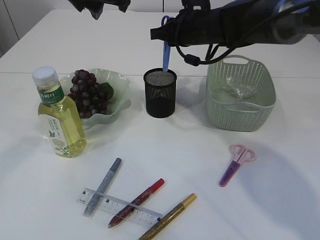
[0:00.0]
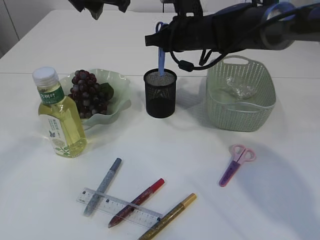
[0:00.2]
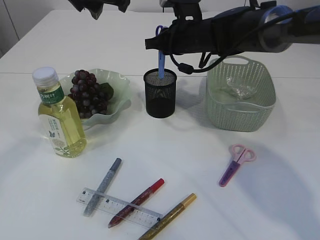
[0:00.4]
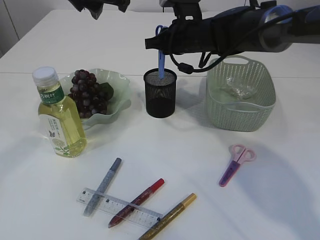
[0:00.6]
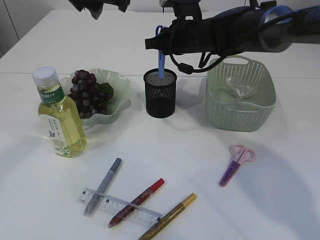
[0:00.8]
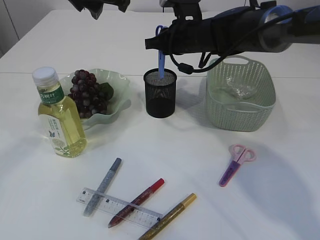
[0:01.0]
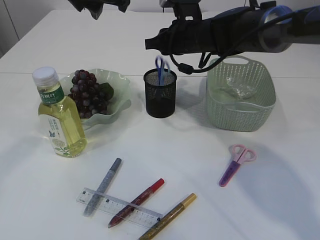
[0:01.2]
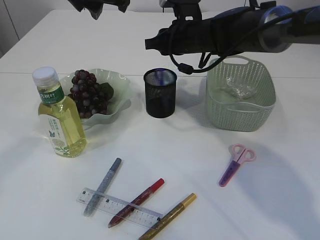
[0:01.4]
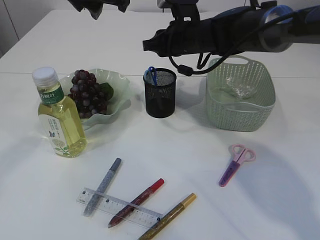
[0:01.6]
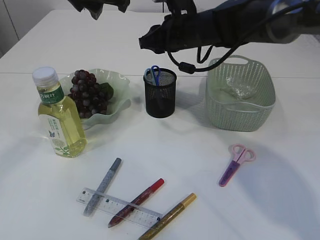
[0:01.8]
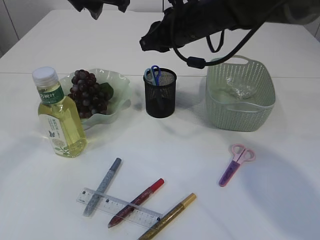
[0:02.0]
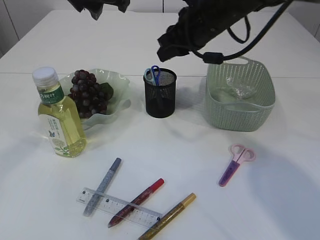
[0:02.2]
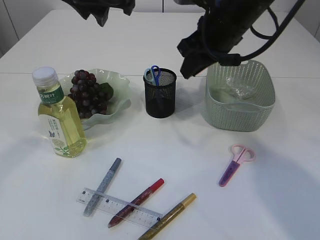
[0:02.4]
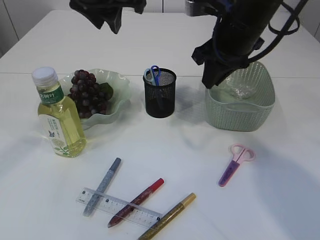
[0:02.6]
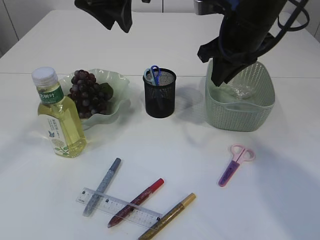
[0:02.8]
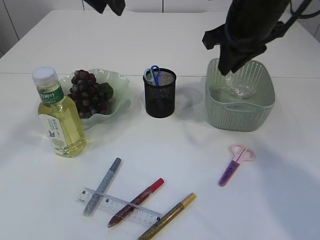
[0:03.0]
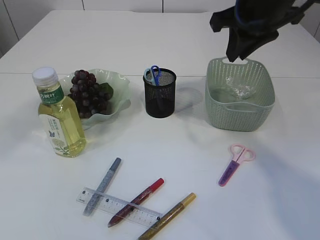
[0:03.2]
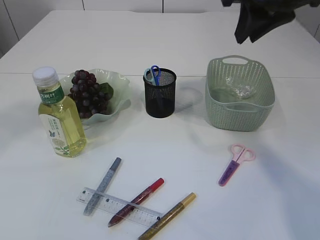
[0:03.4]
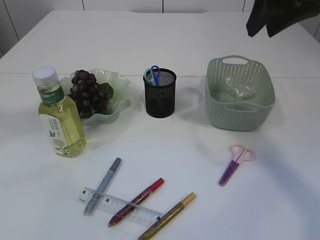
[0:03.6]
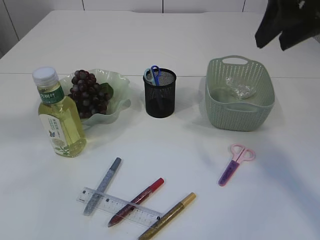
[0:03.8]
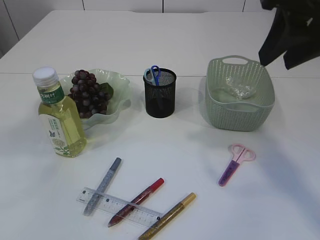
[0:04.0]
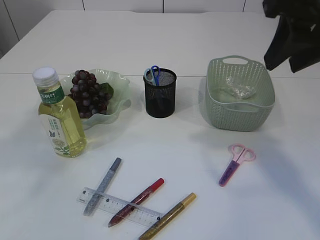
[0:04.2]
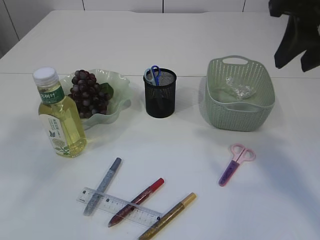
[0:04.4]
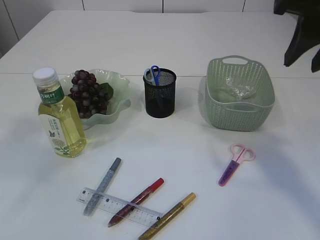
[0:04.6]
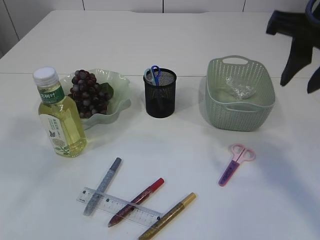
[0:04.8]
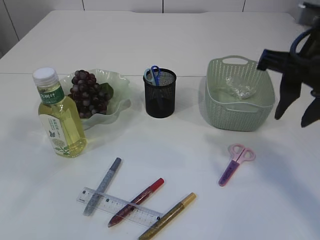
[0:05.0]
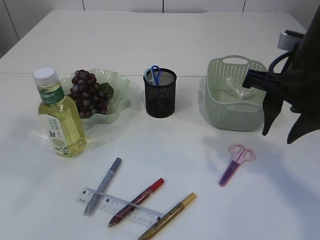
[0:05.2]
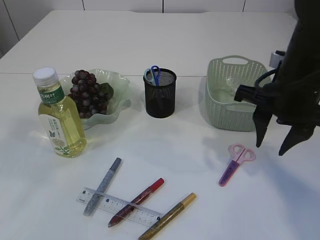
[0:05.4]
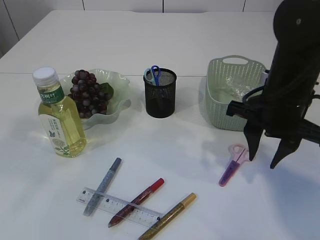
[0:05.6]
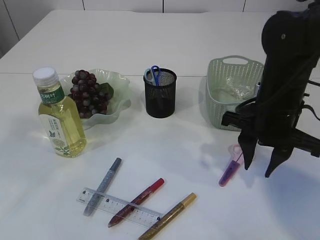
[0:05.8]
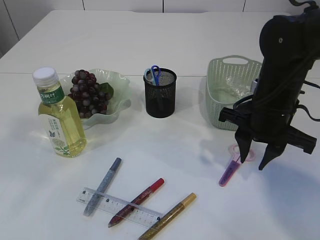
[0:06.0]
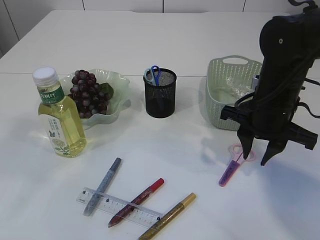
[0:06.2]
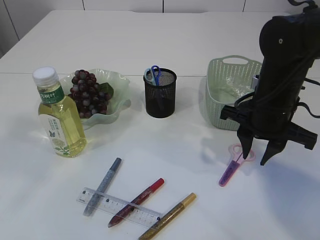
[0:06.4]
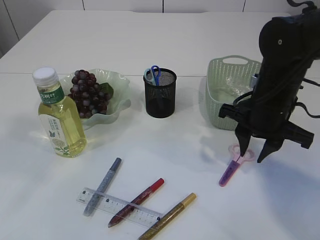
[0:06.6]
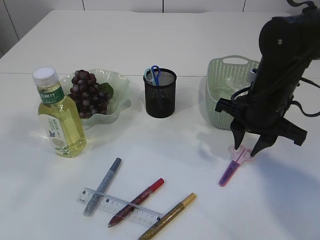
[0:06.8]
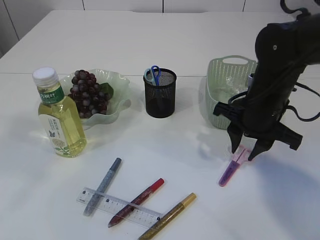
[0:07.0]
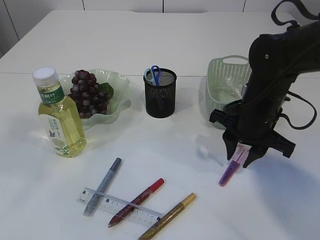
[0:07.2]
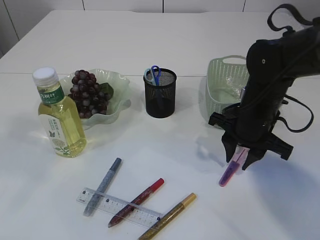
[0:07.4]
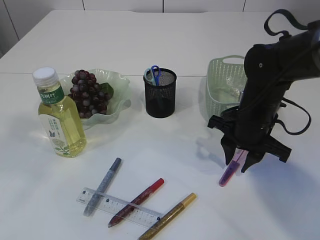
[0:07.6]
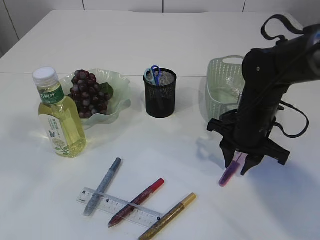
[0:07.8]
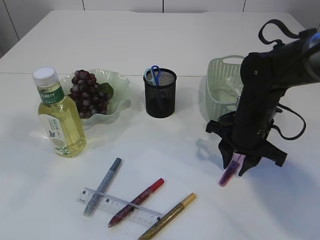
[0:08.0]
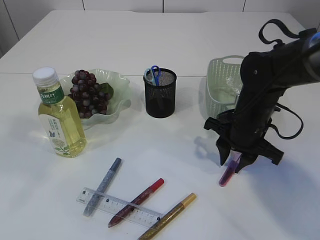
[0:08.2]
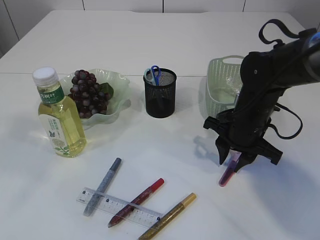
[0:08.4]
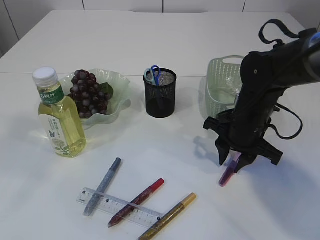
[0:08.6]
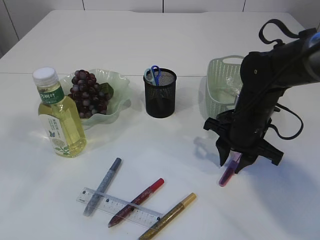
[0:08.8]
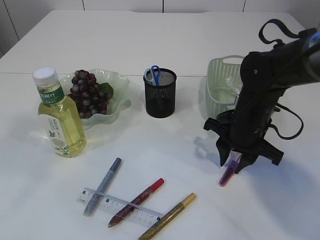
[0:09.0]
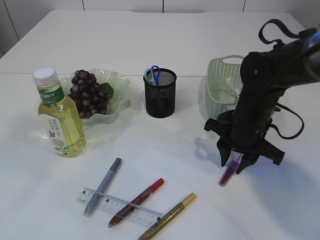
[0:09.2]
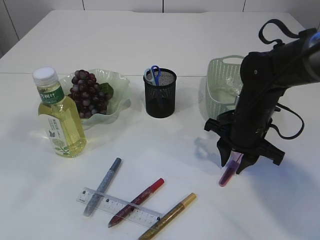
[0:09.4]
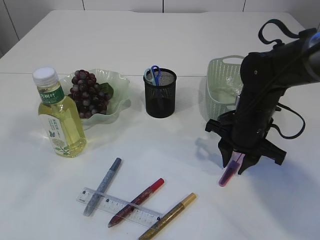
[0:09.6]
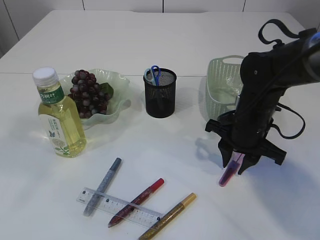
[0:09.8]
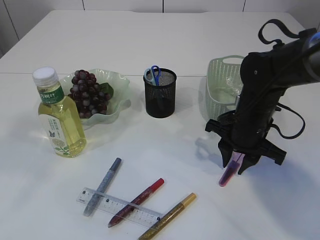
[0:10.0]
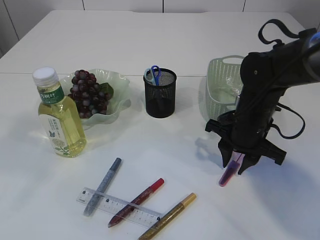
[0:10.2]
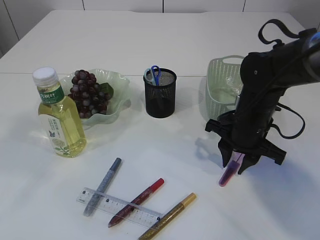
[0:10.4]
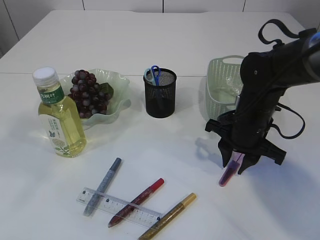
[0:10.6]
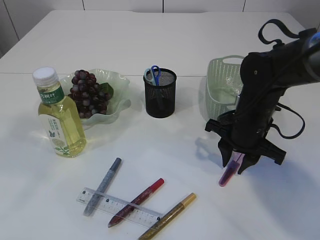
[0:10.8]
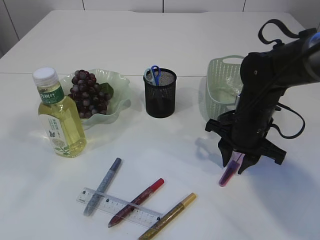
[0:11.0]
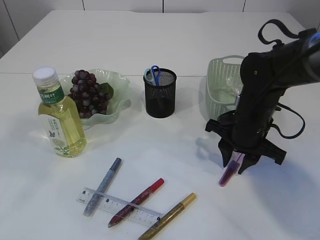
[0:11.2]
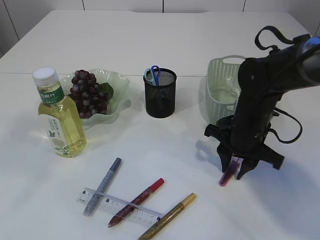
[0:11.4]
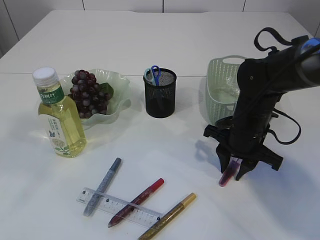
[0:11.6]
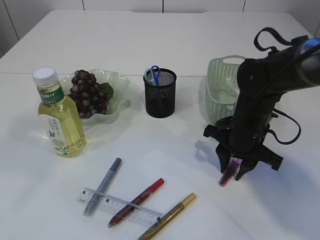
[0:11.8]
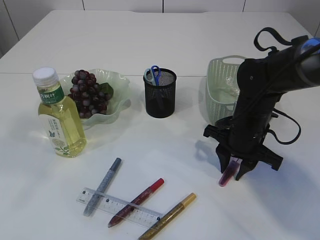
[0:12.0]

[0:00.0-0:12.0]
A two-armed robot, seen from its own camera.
Step, 0:00.0 to 0:02.0: Place the blue scissors into the pen holder.
0:00.0 to 0:01.6: The grippers make only small movements.
0:01.6 to 0:03.0: The left gripper ends up some 5 cm from where it was. The right gripper travels backward, upward and to the right by about 15 cm.
0:03.0 to 0:04.4: The left gripper travels backward, to the left and upward by approximately 20 cm; the right gripper travels backward and upward by roughly 15 cm.
0:04.4 to 0:06.0: The right gripper shifts some 20 cm downward.
0:06.0 to 0:07.6: The right gripper ends up approximately 5 cm from where it was.
0:07.6 to 0:09.0: The grippers stay close to where they were, moving slightly.
0:09.0 to 0:12.0: Both grippers stay put.

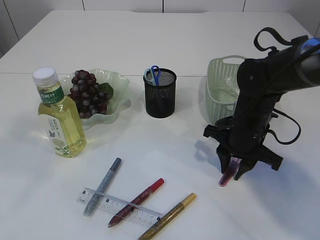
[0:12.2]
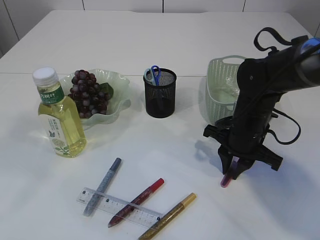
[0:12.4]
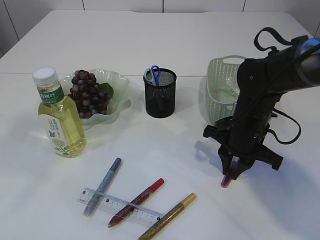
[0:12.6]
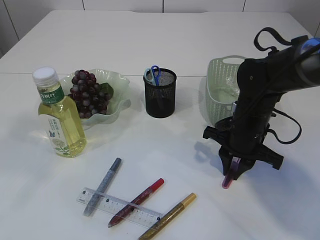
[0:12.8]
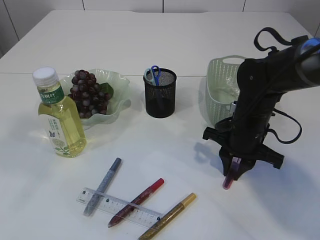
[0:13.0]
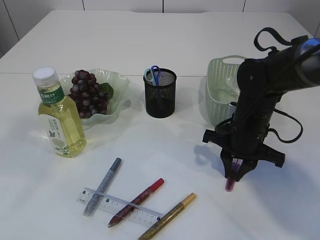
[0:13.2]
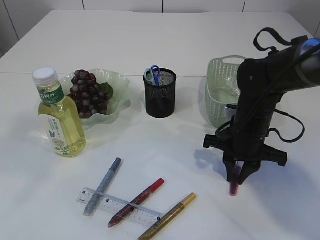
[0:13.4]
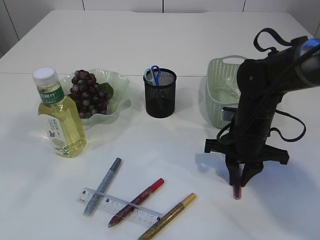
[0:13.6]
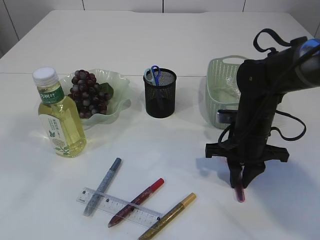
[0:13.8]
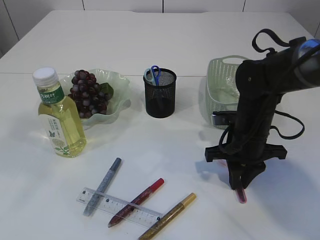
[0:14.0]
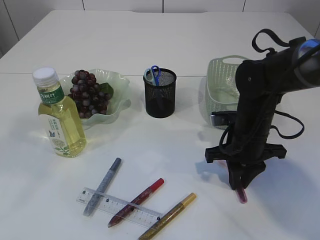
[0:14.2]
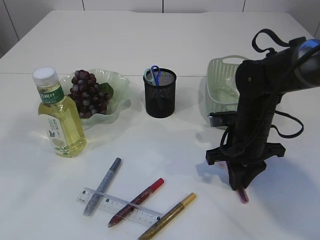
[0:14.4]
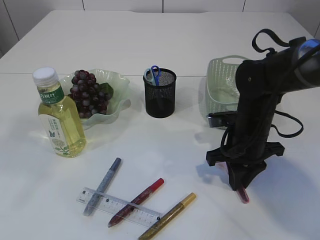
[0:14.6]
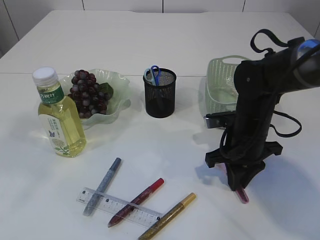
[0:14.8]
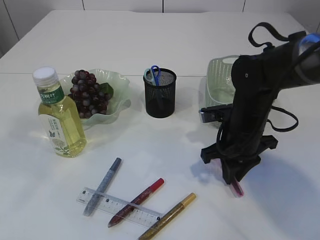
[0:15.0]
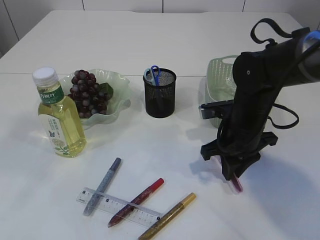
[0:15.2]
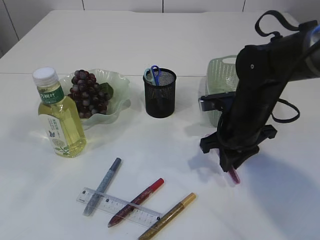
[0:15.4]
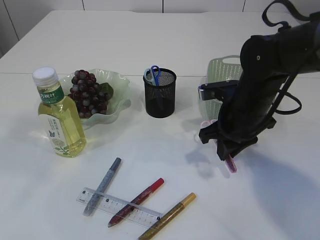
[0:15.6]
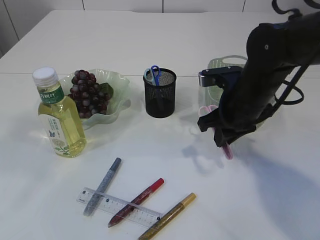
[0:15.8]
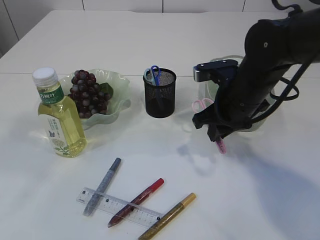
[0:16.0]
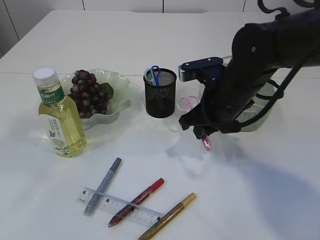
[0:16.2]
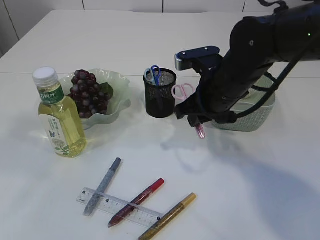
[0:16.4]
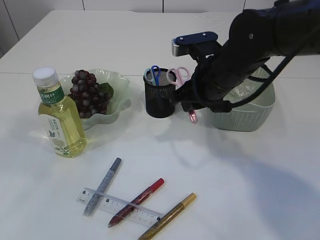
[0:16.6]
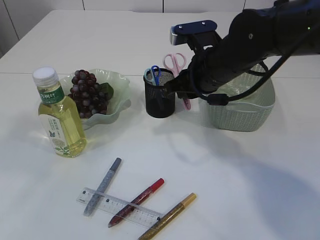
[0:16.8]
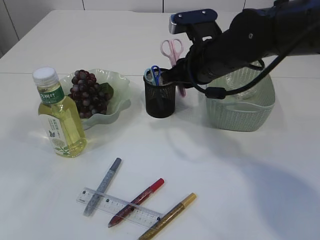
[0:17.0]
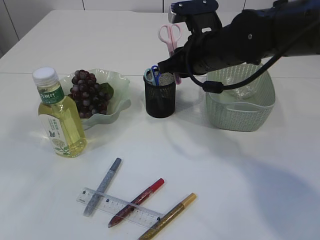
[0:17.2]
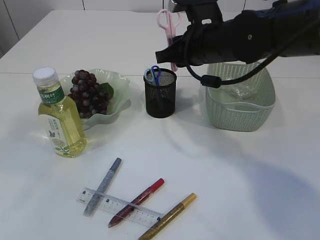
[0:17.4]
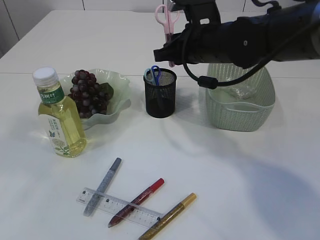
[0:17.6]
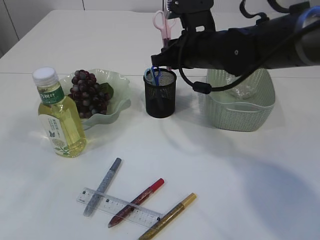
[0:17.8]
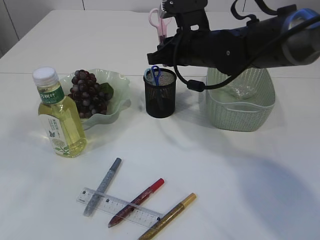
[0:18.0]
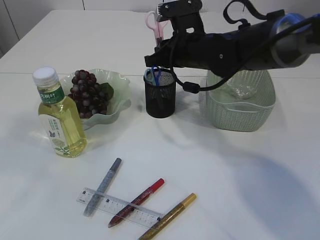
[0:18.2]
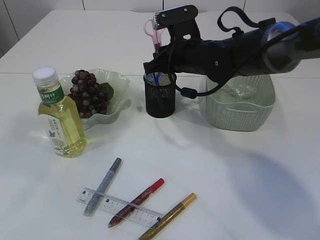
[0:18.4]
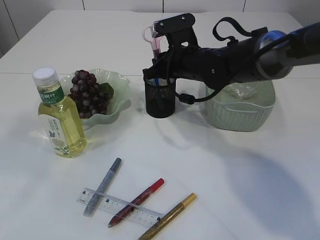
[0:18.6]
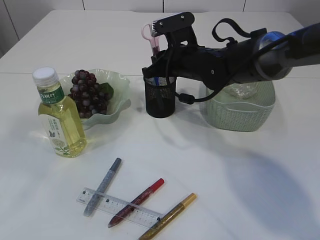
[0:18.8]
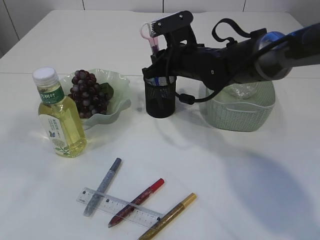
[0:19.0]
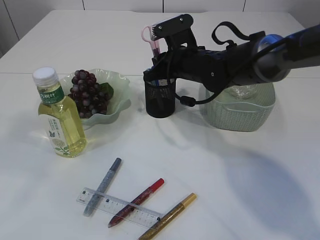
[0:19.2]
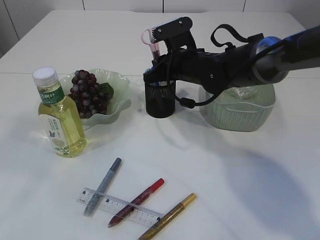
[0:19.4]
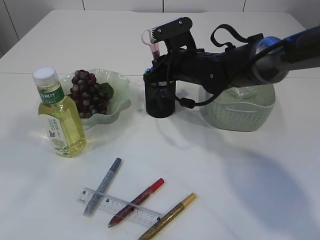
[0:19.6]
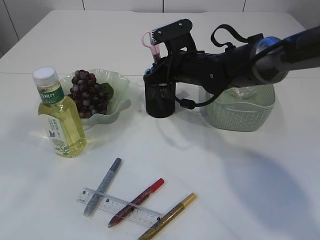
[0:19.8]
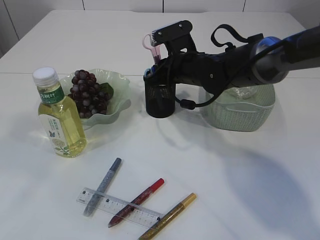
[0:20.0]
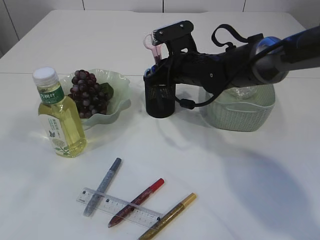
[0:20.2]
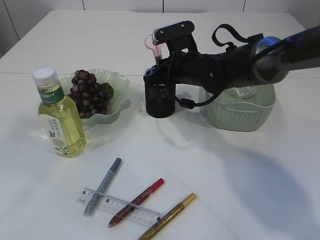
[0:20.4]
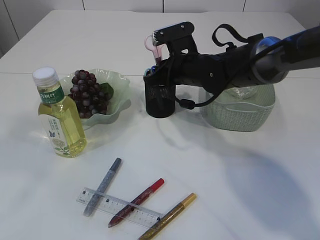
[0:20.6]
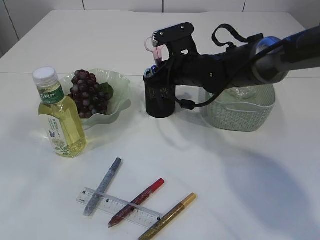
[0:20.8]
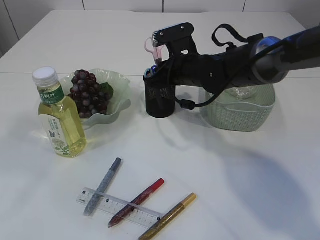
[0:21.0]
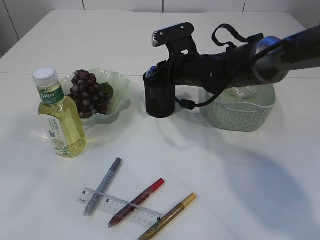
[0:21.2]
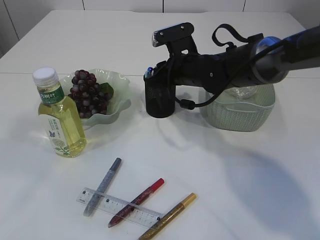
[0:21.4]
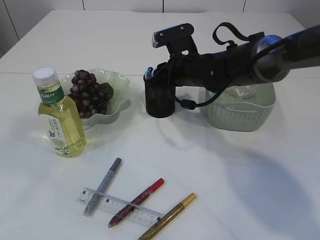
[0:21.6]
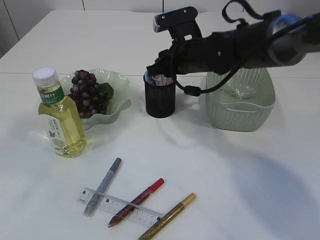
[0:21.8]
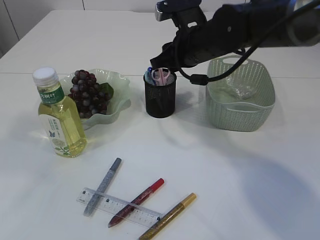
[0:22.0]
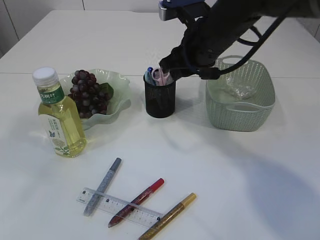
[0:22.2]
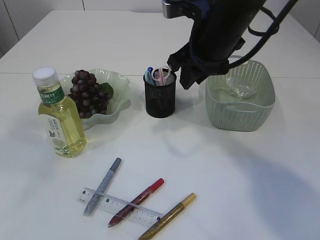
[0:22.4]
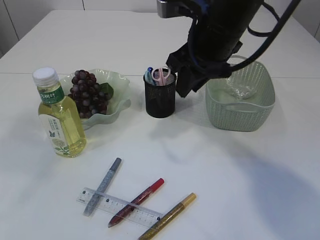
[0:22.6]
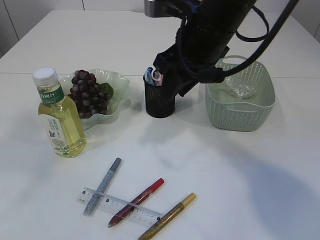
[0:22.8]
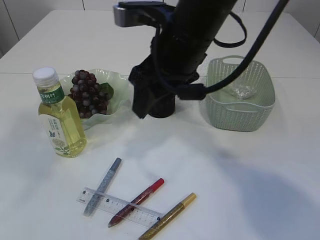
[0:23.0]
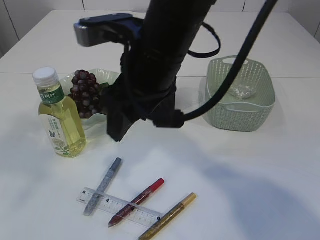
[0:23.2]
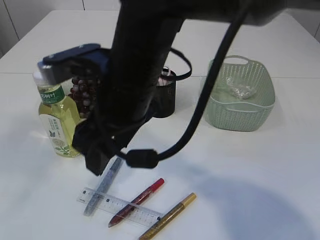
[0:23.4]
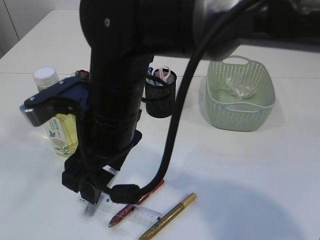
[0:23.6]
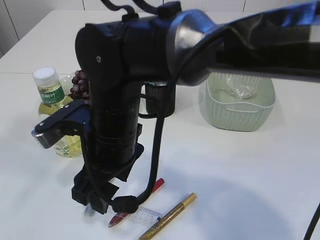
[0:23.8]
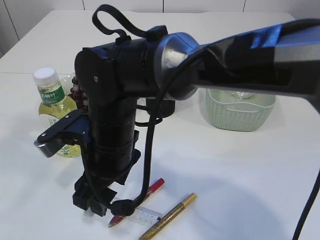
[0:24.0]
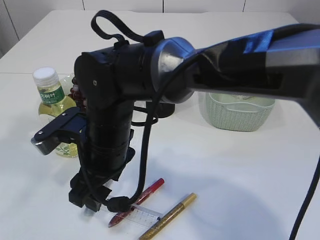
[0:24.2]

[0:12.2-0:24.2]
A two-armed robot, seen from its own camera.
Step, 0:12.2 to 0:15.8: pick up the pink scissors.
Step, 0:16.0 to 0:22.2: Place the pink scissors into the pen holder.
0:15.2 to 0:16.6: The right gripper travels upward by roughly 10 cm.
0:16.6 to 0:18.2: The right gripper travels forward by approximately 5 cm.
0:18.2 to 0:19.8: The grippers move only a little.
0:19.8 to 0:21.2: The two grippers keep their place.
0:21.2 to 0:22.6: The right gripper moves upward and backward, some 15 cm.
0:22.6 to 0:24.2: The right gripper shifts approximately 20 cm to the left, downward and backward, and opens its fingers.
